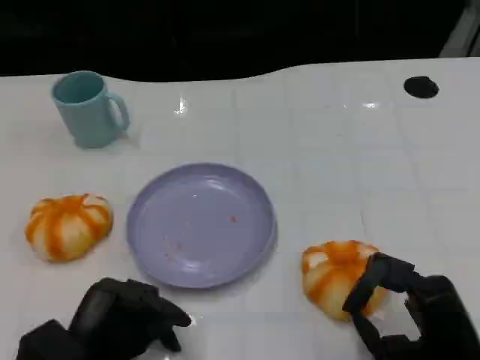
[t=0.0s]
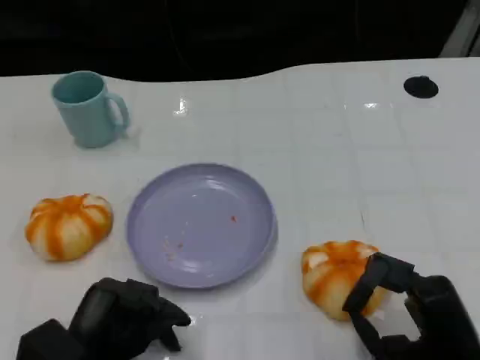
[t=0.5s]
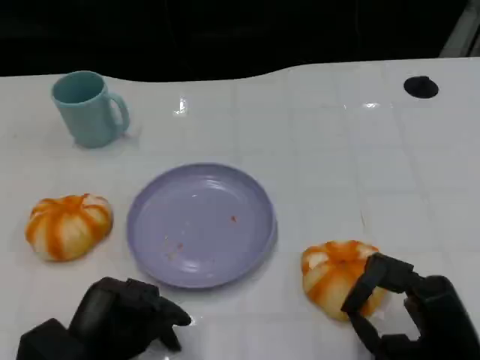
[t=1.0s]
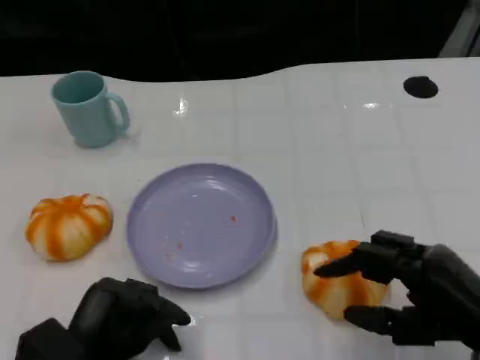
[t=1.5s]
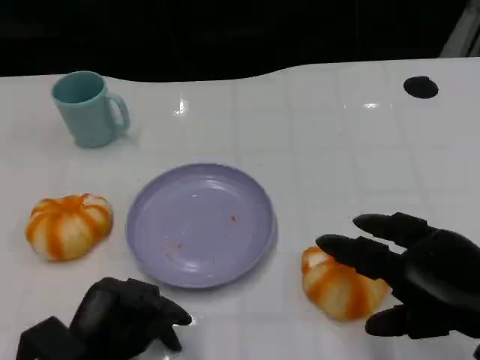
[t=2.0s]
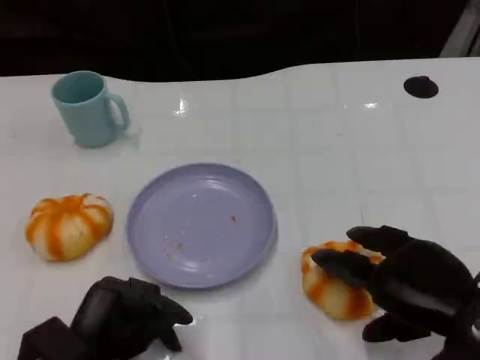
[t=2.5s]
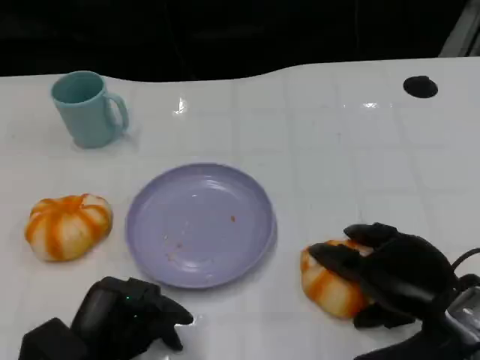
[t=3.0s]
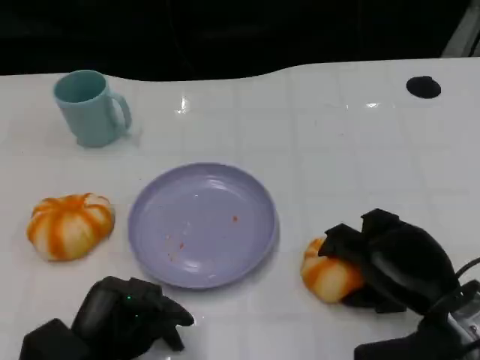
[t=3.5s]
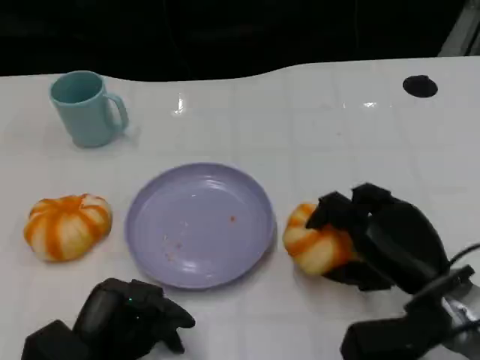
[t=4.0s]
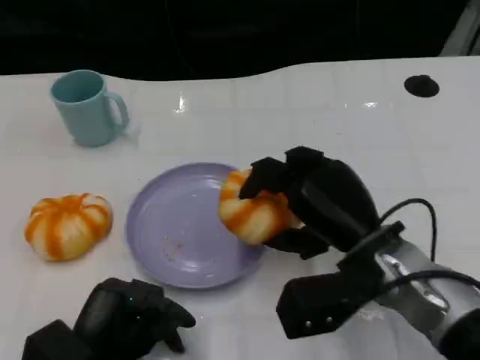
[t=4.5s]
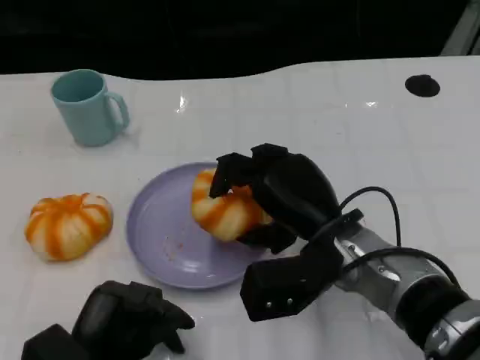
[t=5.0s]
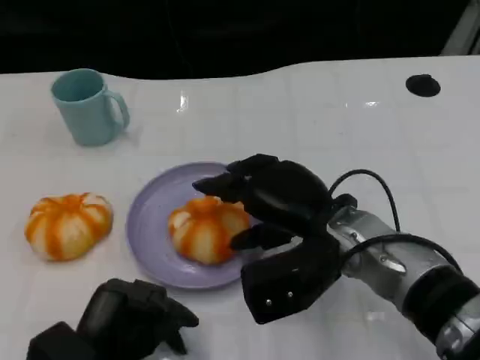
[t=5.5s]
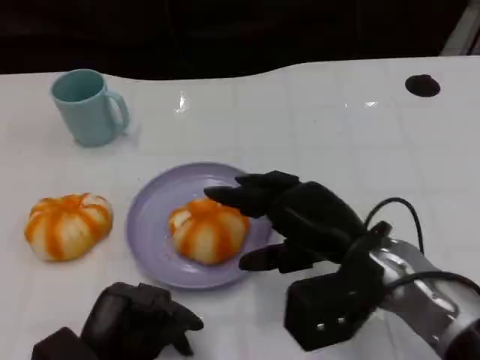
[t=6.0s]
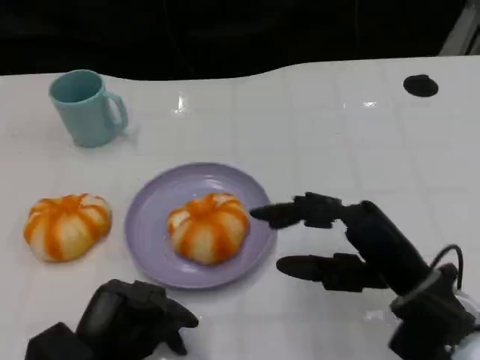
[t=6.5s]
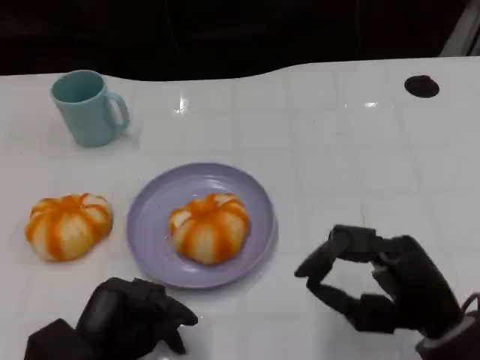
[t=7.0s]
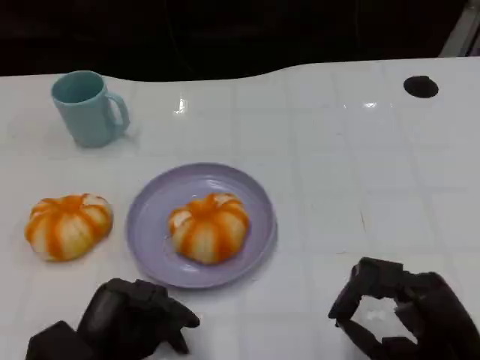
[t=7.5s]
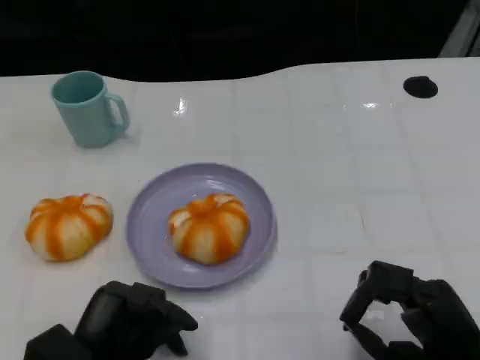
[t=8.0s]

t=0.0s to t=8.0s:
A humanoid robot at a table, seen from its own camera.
Task of the whole recording: Grasp the bread from the table and place it into the plate.
t=0.0s to t=2.0s: The right hand heads upward, covering about 10 cm.
t=2.0s to t=4.0s: The right hand travels downward and forward by approximately 10 cm.
t=4.0s to t=6.0s: The right hand travels to the left by about 5 cm.
t=6.0s to t=8.0s: The right hand travels backward, to the right and downward by some 15 cm.

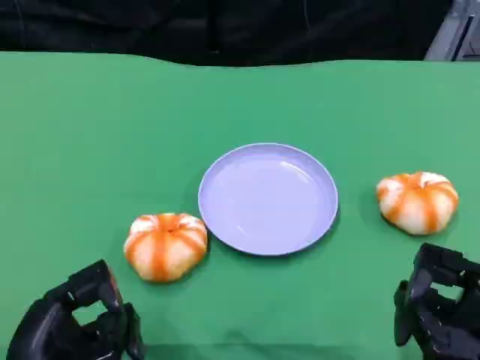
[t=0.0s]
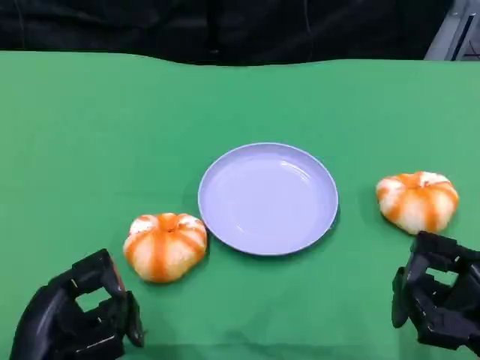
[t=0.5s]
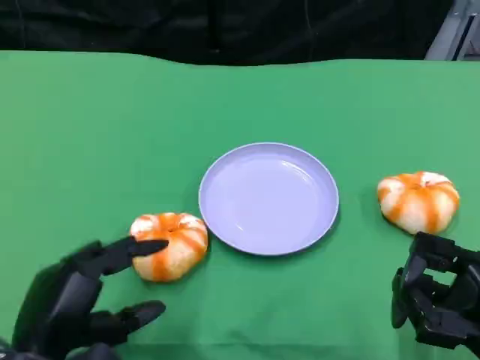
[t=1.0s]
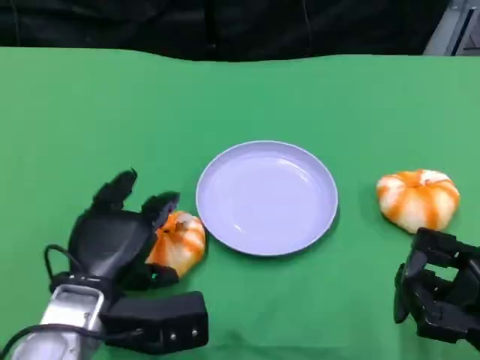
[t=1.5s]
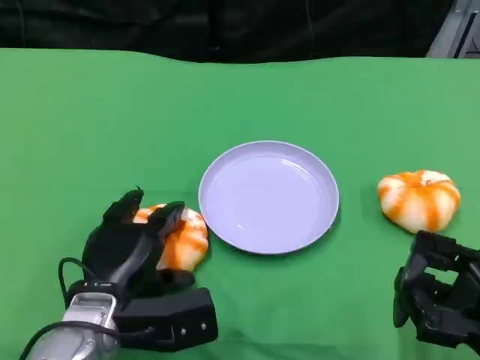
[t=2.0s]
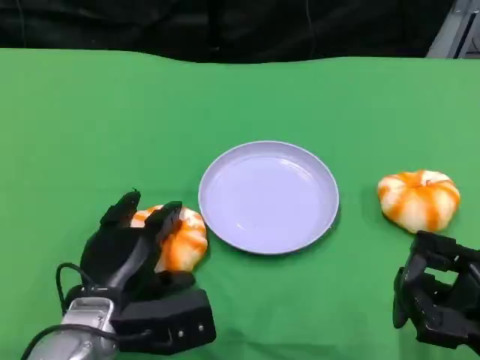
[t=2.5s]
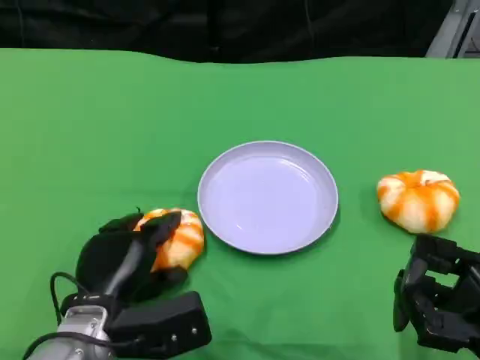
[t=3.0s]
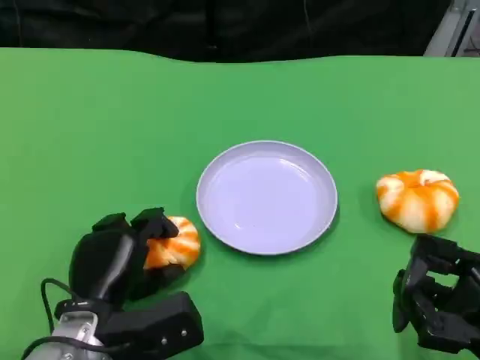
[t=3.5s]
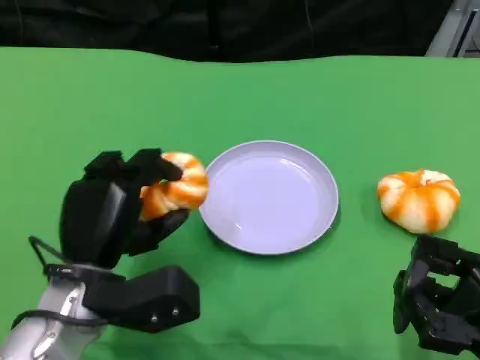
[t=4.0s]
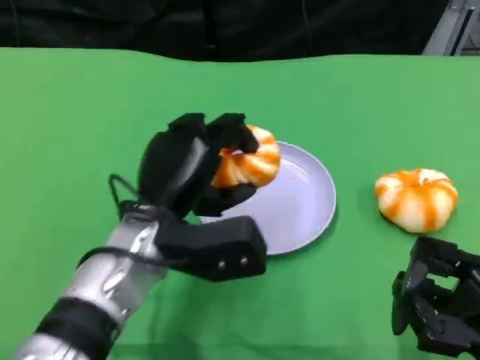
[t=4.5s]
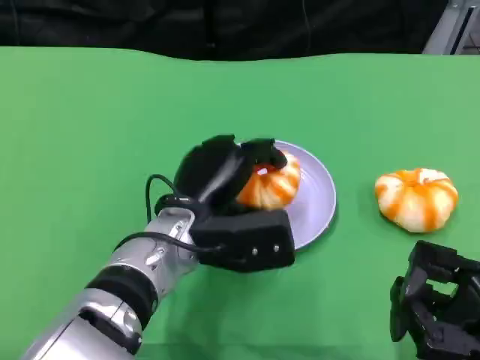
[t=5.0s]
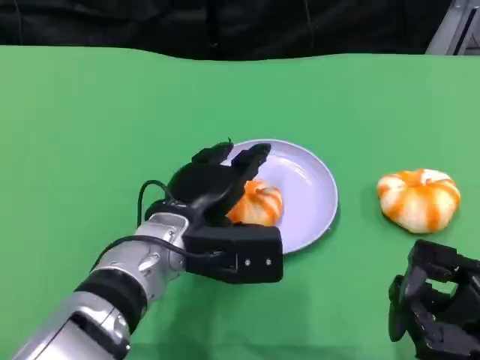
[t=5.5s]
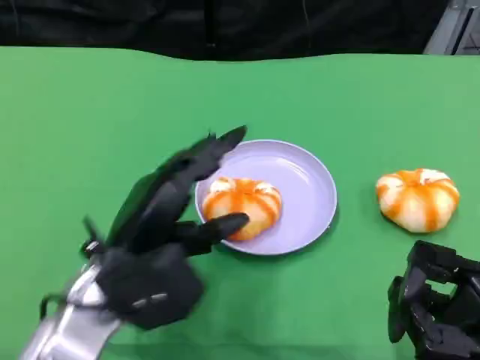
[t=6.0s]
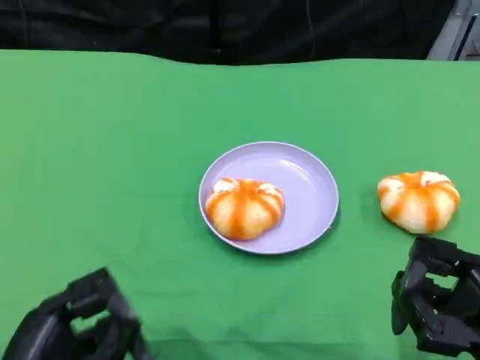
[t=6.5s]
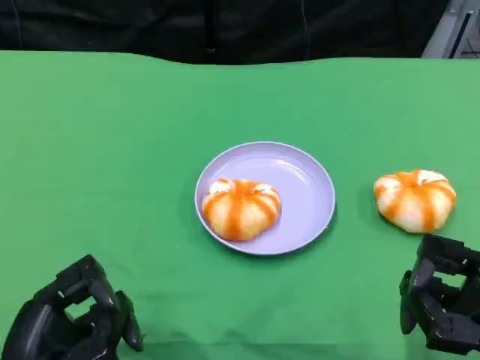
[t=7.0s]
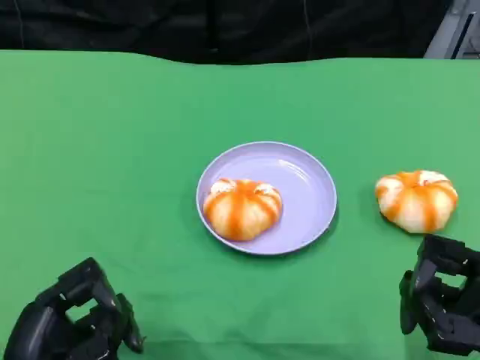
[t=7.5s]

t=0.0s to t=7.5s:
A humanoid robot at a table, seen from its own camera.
Task of the whole recording: Grasp the bread from the table and place it into the plate.
t=0.0s to t=2.0s: The left hand shifts roughly 15 cm forward and to the right.
t=4.0s to t=5.5s: The left hand heads to the right, covering roughly 10 cm.
t=5.5s to t=7.5s: The left hand is displaced backward and to the left by roughly 20 cm.

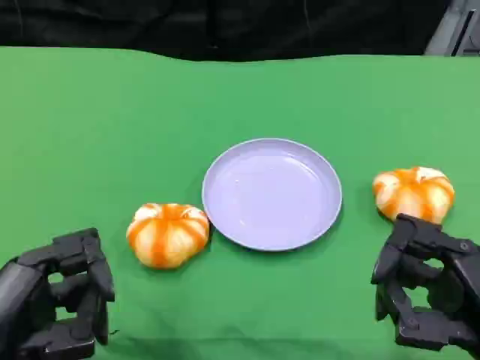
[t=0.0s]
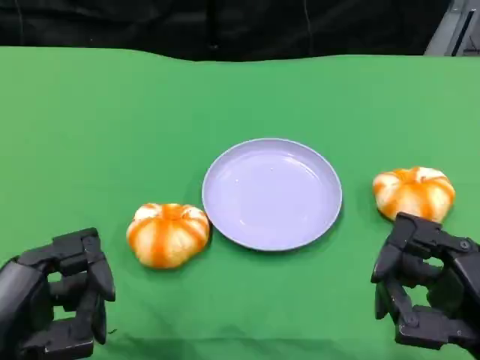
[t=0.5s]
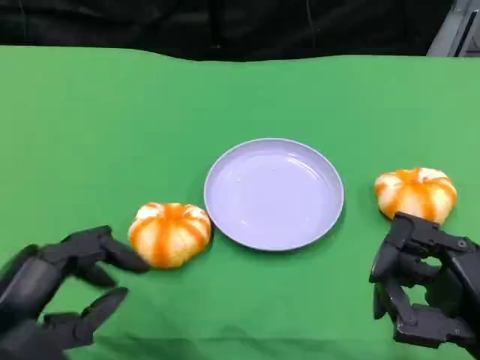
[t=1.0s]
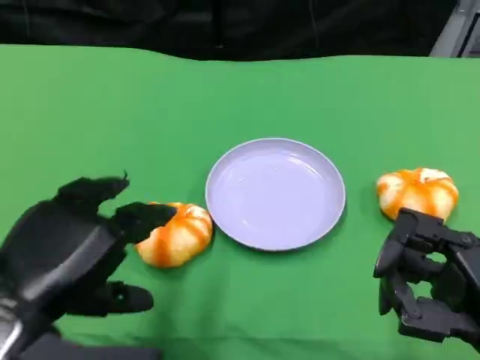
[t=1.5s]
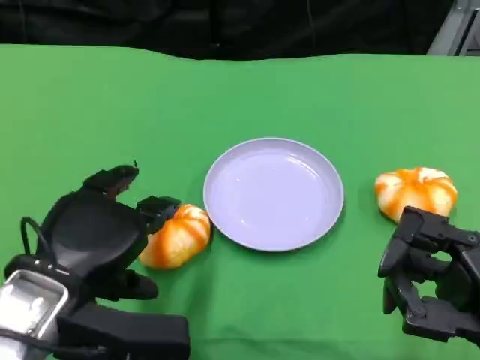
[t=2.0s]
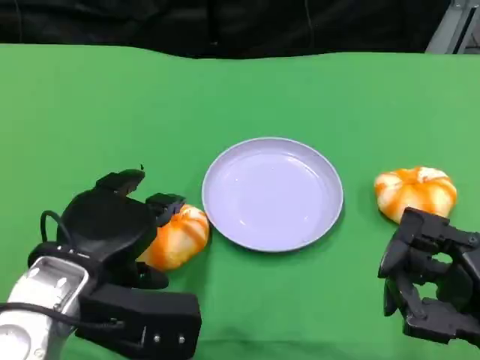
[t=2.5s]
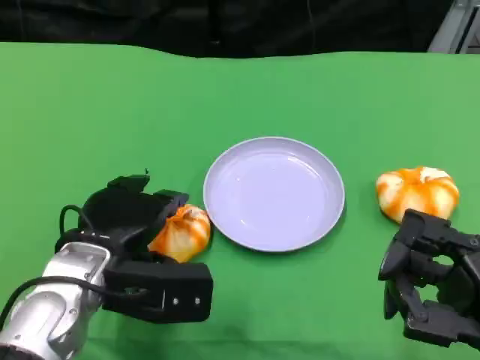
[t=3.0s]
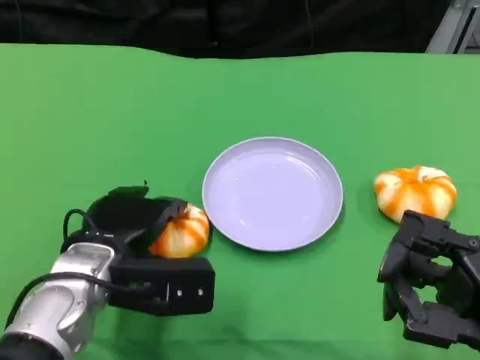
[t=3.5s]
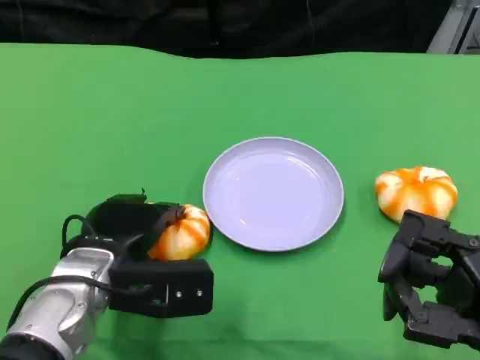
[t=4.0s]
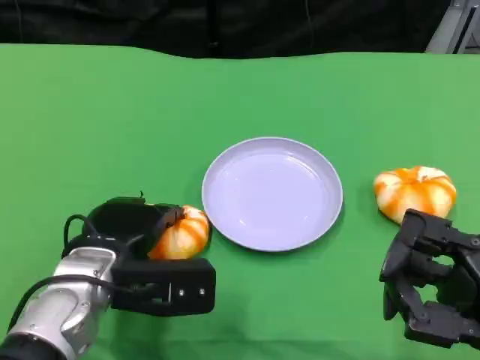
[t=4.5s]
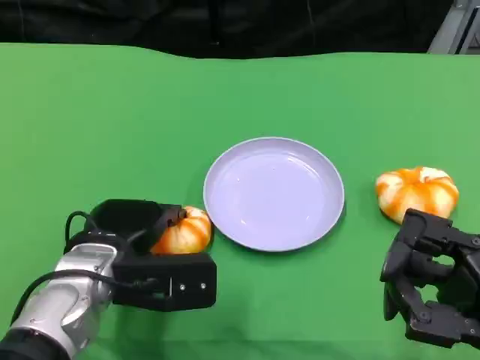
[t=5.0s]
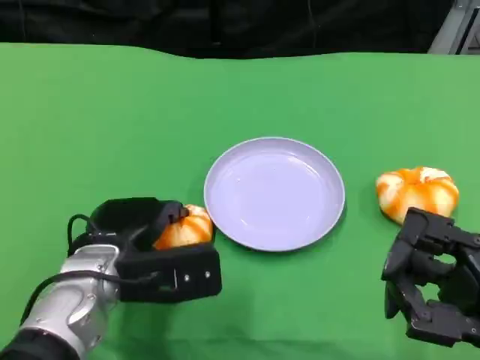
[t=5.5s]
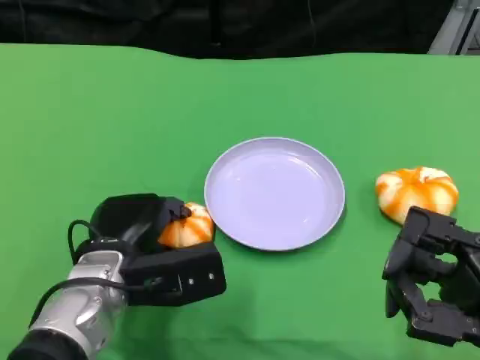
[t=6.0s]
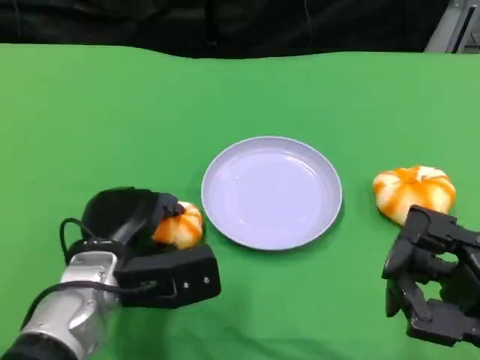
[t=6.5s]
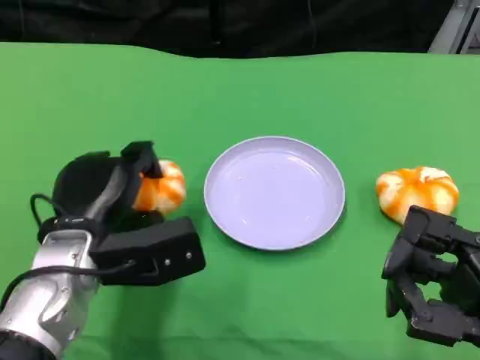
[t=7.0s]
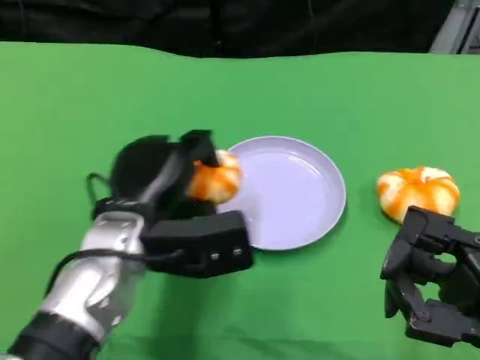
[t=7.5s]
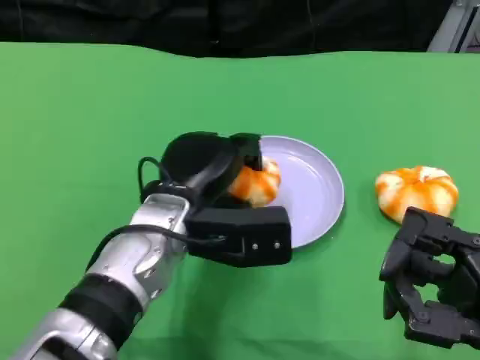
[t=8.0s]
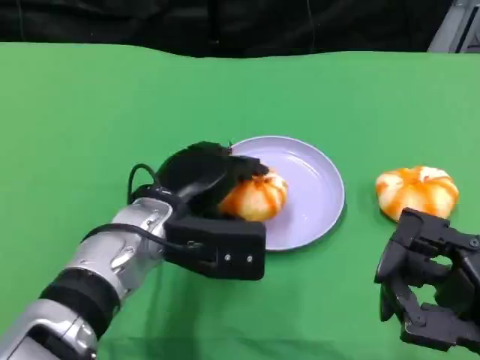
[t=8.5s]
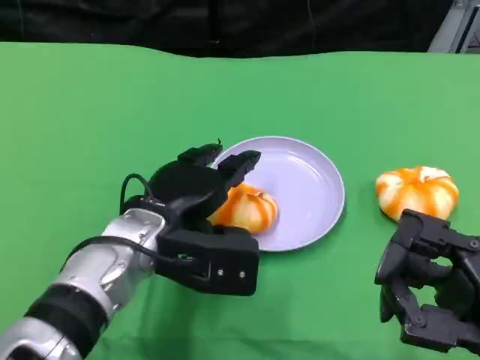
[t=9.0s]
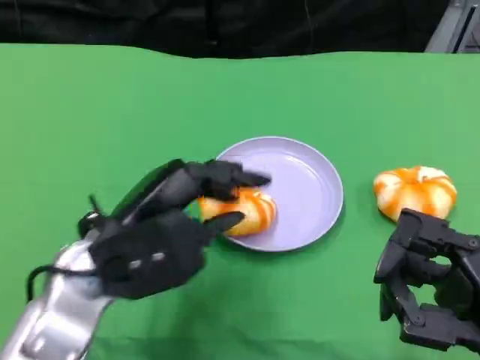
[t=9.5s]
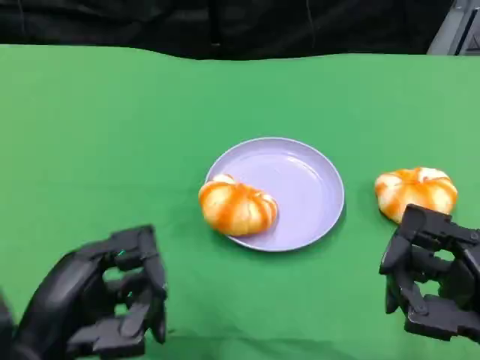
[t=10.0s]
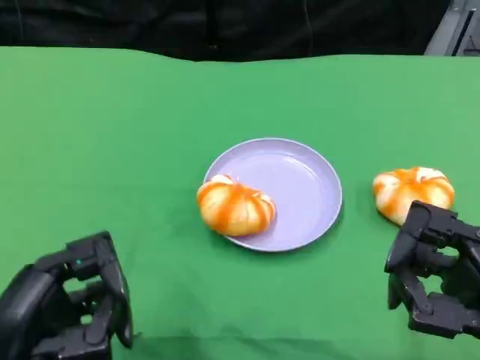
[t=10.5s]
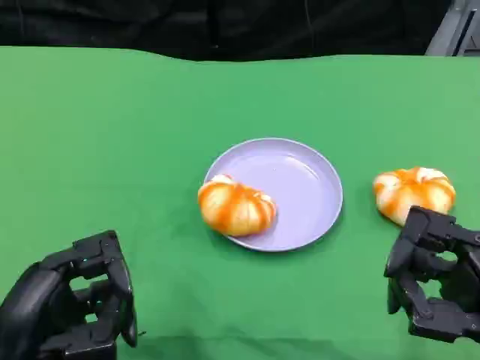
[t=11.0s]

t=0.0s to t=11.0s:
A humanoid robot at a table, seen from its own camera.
Task of the whole recording: Grasp the bread from the table and place it into the plate.
t=0.0s to t=2.0s: The left hand heads forward and to the right, covering roughly 10 cm.
t=2.0s to t=3.5s: The left hand travels forward and downward by about 10 cm.
t=3.5s to t=5.5s: The hands move only a little.
t=5.5s to t=7.5s: The left hand moves roughly 5 cm.
t=9.0s to t=11.0s: The left hand is displaced backward and to the left by some 20 cm.
